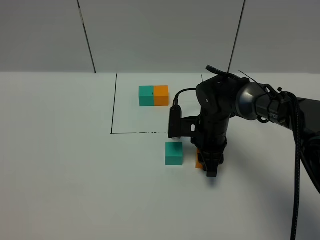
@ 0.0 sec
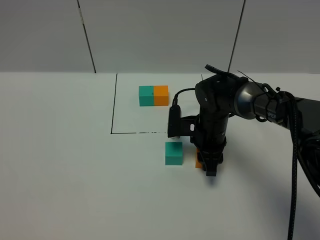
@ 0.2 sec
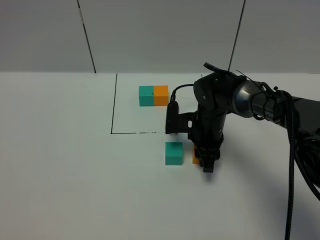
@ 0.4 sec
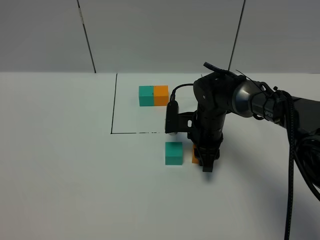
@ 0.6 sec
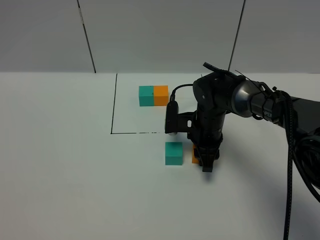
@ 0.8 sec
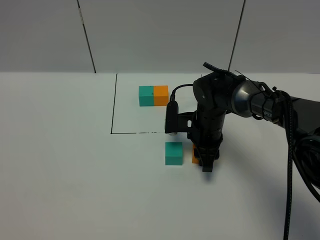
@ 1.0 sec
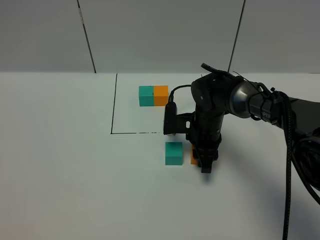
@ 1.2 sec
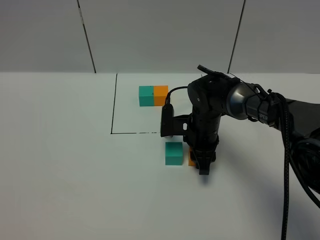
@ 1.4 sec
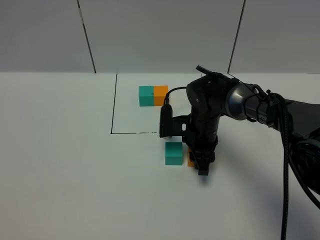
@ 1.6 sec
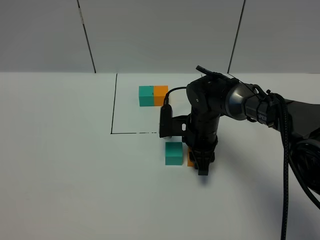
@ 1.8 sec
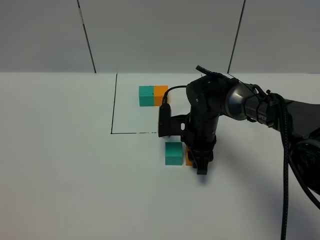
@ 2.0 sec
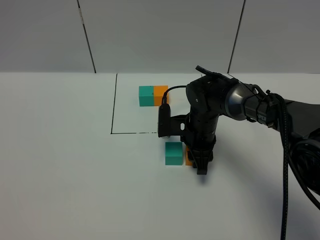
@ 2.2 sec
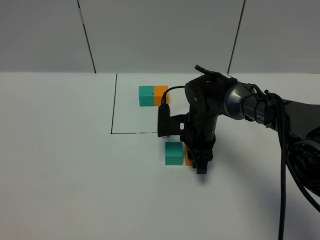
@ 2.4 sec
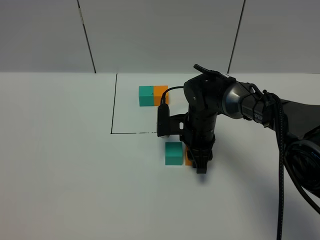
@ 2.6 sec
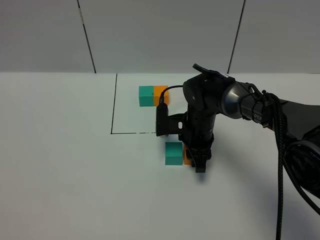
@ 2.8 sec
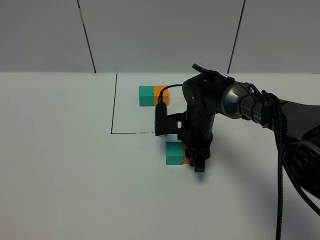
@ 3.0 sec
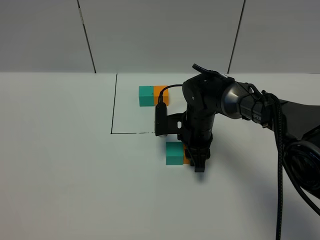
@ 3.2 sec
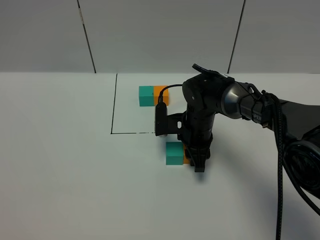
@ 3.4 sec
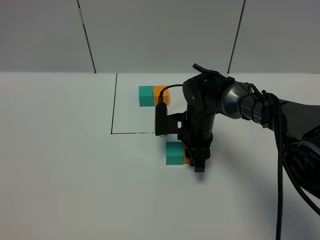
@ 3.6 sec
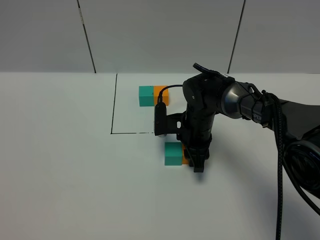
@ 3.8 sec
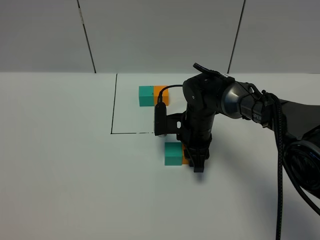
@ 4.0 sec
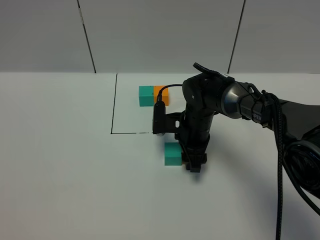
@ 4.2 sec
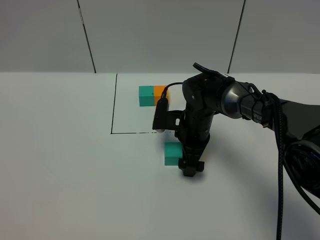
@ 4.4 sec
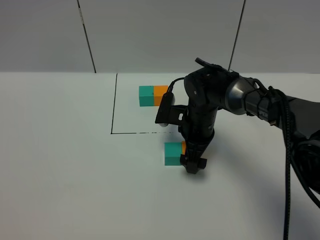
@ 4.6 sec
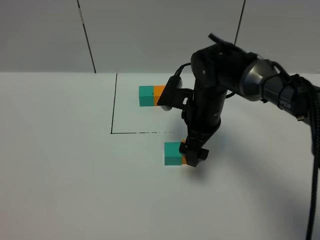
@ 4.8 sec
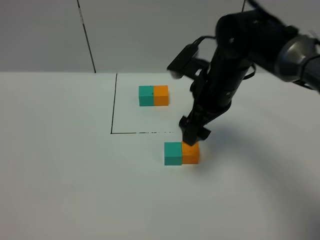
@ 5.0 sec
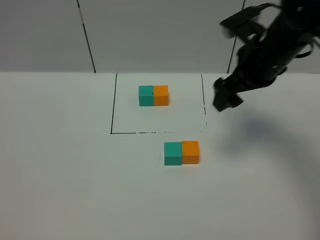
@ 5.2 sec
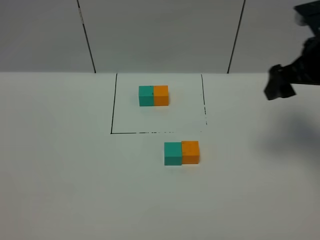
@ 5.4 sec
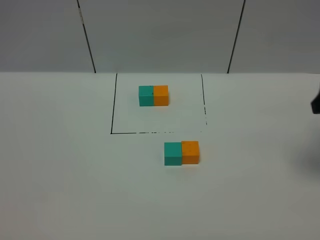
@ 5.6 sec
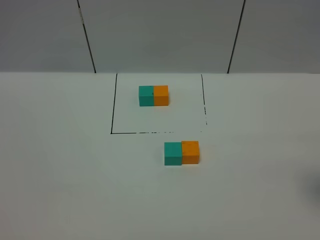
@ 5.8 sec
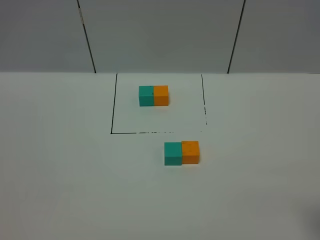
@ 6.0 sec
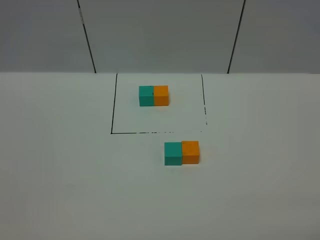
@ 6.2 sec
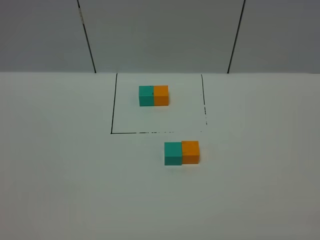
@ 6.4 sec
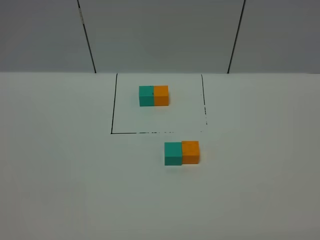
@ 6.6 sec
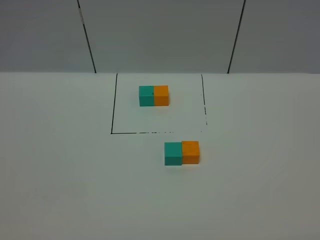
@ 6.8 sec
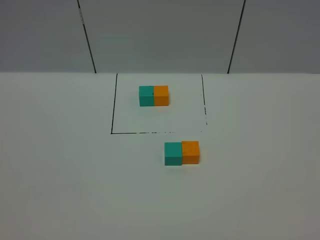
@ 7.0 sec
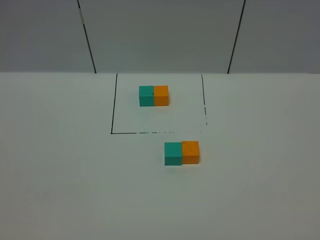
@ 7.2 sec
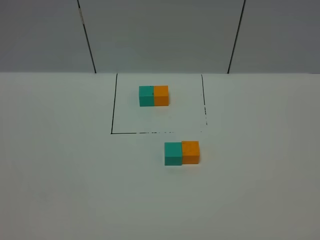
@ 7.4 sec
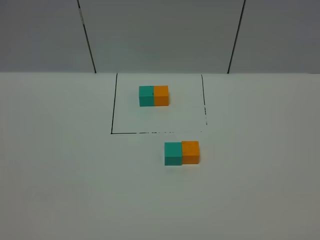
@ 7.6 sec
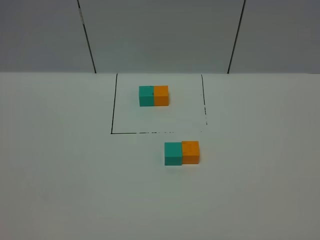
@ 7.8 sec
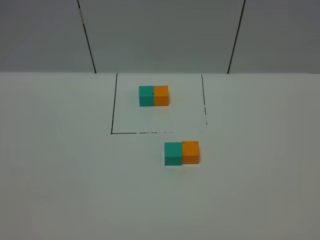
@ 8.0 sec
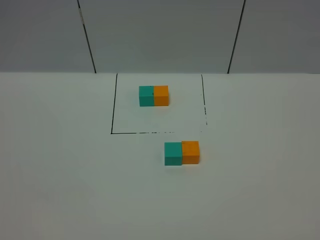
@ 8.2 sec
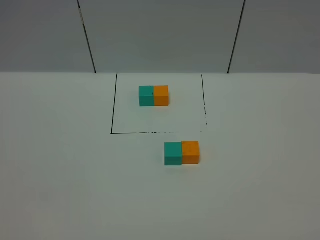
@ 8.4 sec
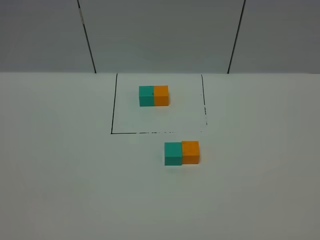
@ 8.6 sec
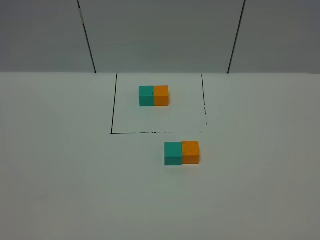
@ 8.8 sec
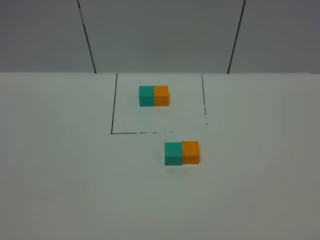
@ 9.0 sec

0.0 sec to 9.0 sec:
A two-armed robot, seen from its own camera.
Task of the whole recording: According to the building block template in front, assemble the scattered blocks together.
Step, 0.0 sec to 4.4 sec: Put the orange cube on the right of the green cube.
0.0 sec to 1.6 sec: The grippers stay close to where they were, moving slightly.
1.6 sec to 3.0 sec: The two grippers keep their place.
3.0 sec to 4.4 sec: The right gripper opens.
4.4 sec to 6.0 sec: The right gripper travels backward, to the right and upward by some 40 cm.
7.6 sec to 9.0 sec: Both grippers stay put.
